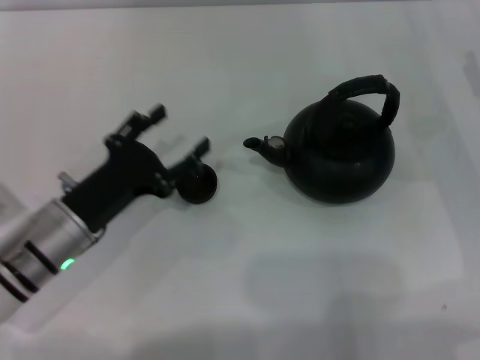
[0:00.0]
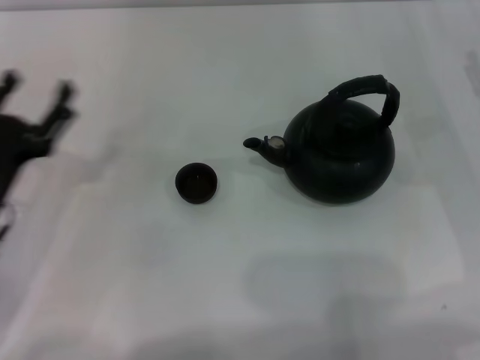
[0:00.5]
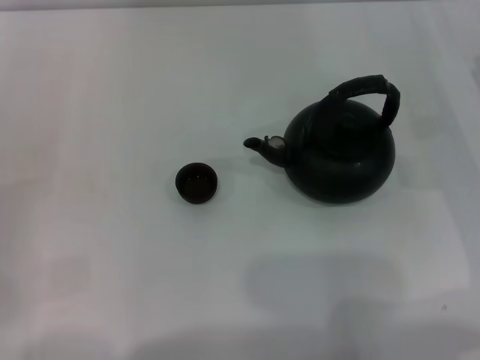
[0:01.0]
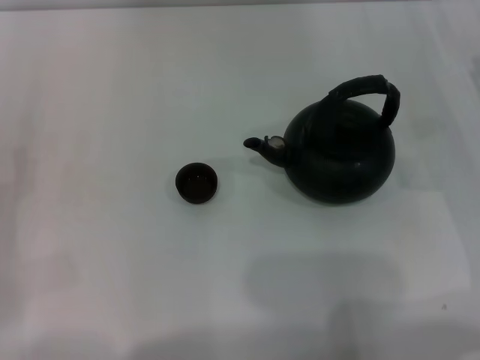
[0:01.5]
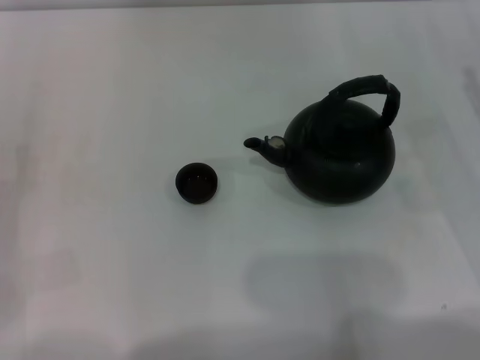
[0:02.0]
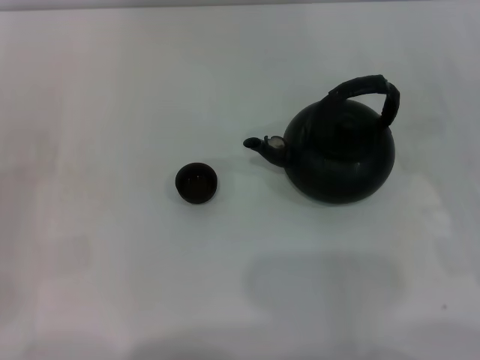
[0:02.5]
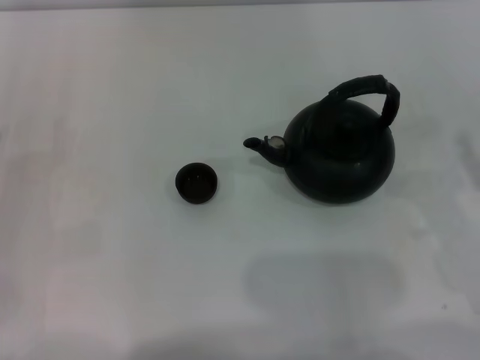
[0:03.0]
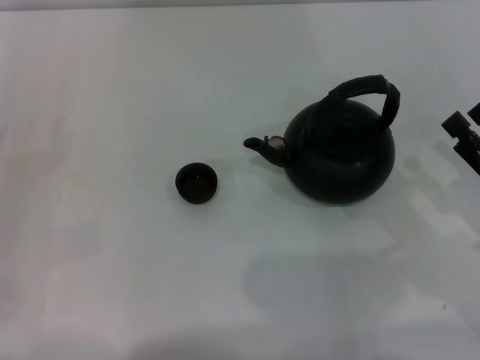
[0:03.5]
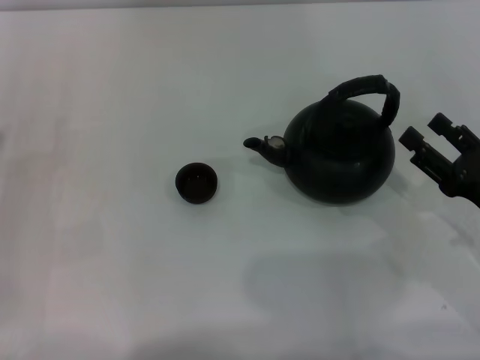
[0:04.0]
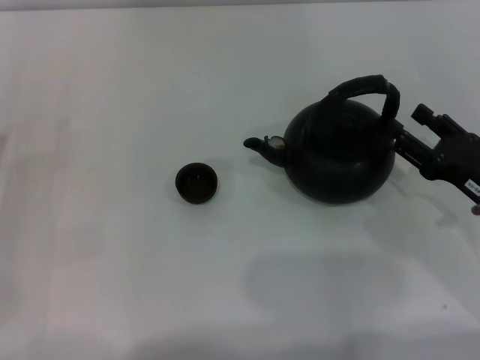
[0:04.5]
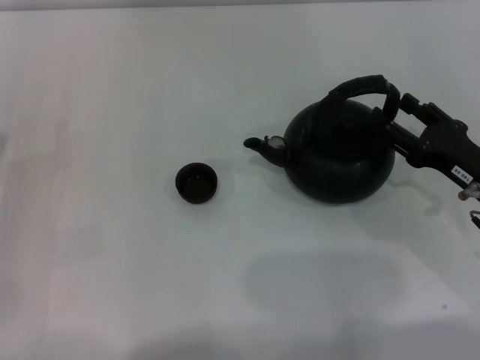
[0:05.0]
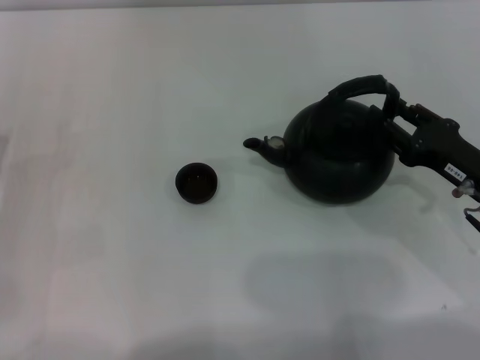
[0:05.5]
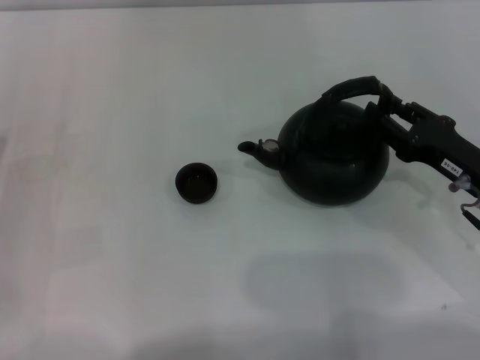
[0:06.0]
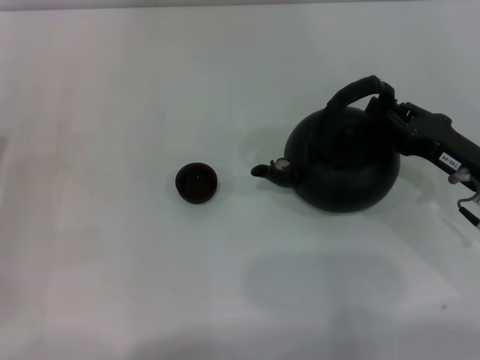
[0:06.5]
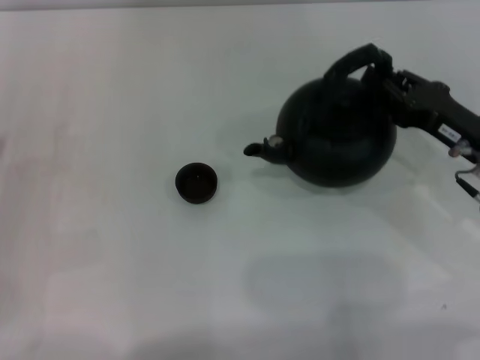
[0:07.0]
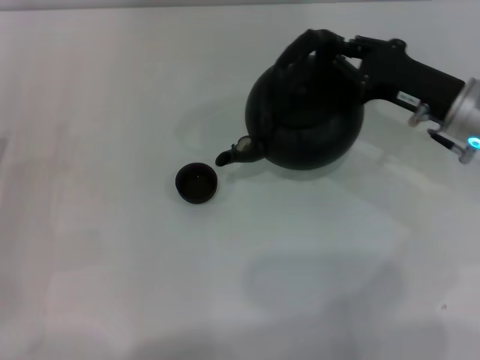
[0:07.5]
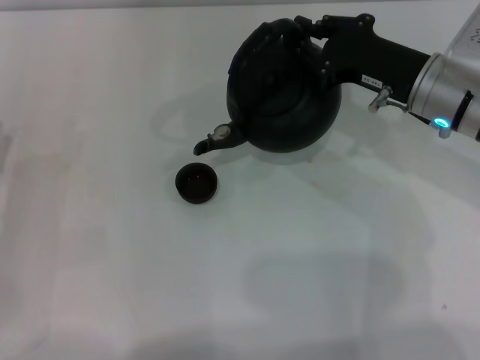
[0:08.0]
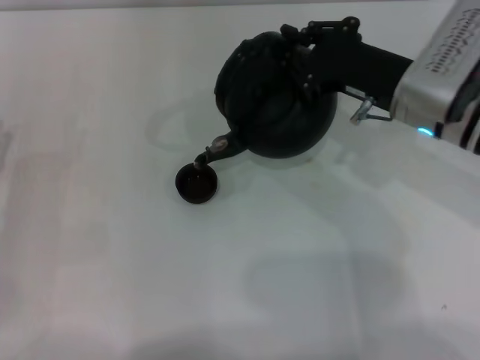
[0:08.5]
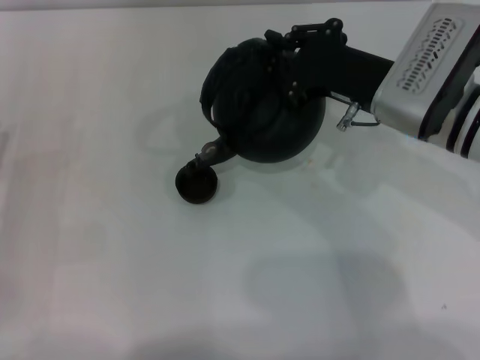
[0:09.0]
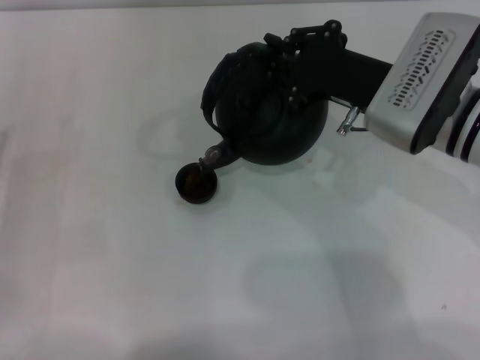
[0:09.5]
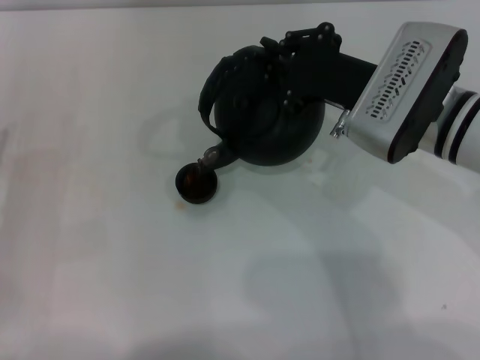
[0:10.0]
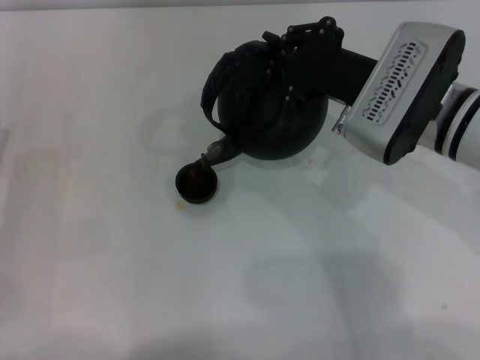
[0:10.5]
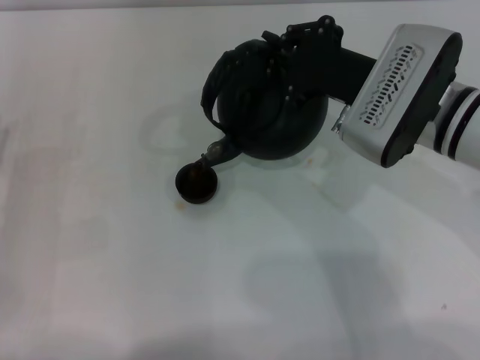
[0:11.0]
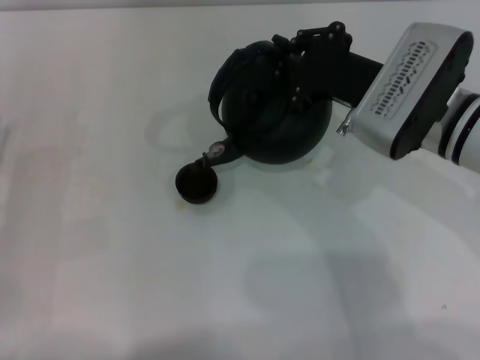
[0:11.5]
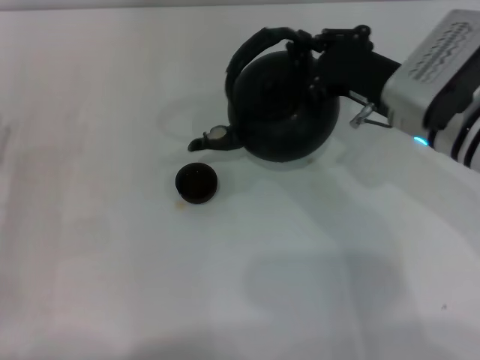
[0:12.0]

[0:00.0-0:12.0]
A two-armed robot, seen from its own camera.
Task of the whole recording: Grasp the handle of the teapot with one hand and pour tea into the teacup.
Step, 0:00.5 to 0:07.0: Pick up the teapot with the right gripper.
Step, 0:07.5 to 0:11.5: Pour tea into the teacup with the right gripper.
0:00.0 to 0:02.0: The left gripper heads to the left, covering some 15 cm.
0:02.0 to 0:04.0: The right gripper shifts approximately 10 cm backward.
0:04.0 to 0:06.0: The right gripper heads forward, covering some 5 cm, and closes up.
0:06.0 to 0:08.0: The right gripper travels forward, upward and to the left by about 15 cm, and closes.
0:08.0 to 0:10.0: The right gripper ends up some 5 cm from where it was.
0:10.0 to 0:12.0: The grippers move only a little.

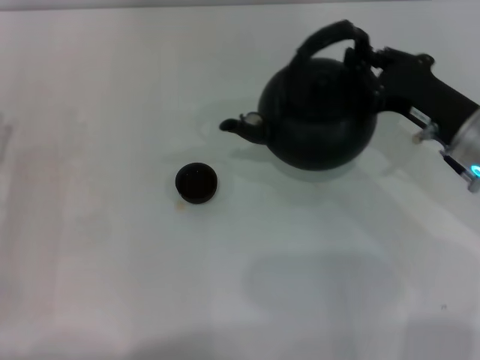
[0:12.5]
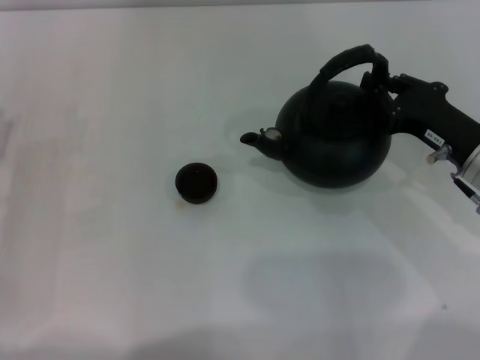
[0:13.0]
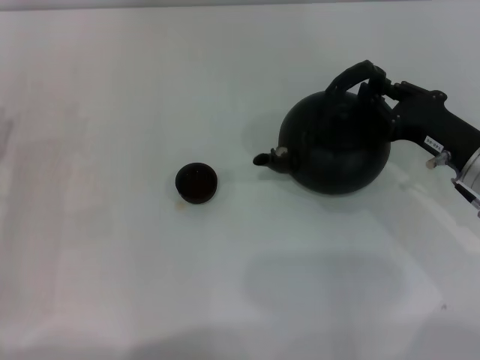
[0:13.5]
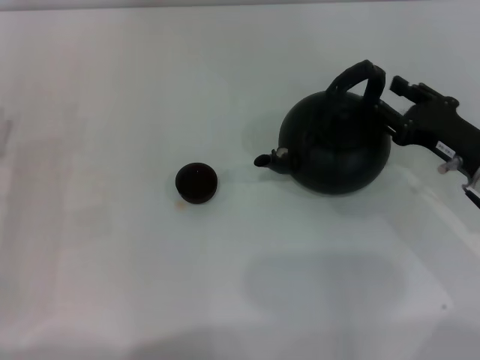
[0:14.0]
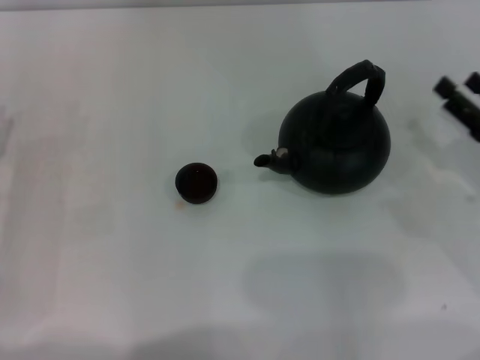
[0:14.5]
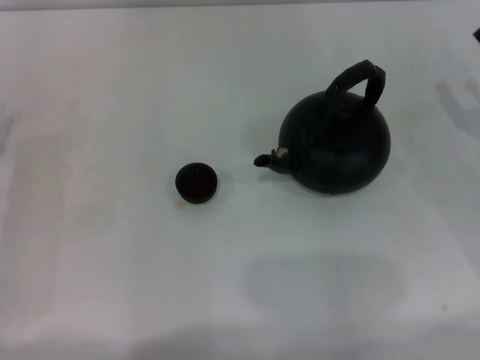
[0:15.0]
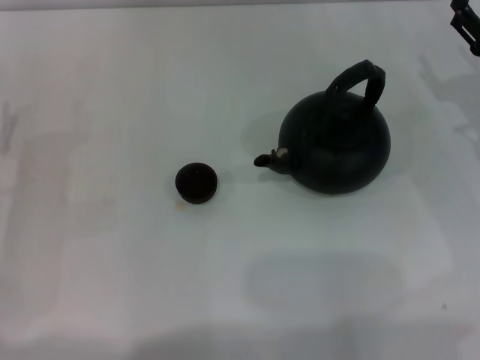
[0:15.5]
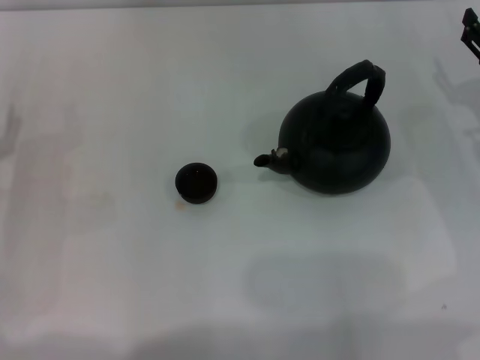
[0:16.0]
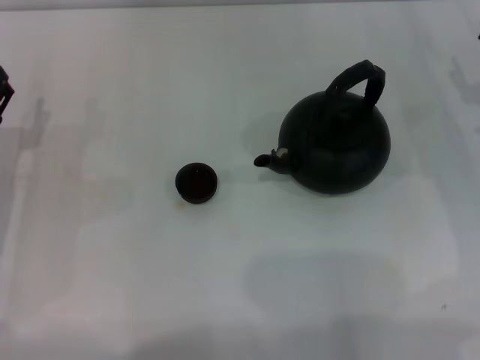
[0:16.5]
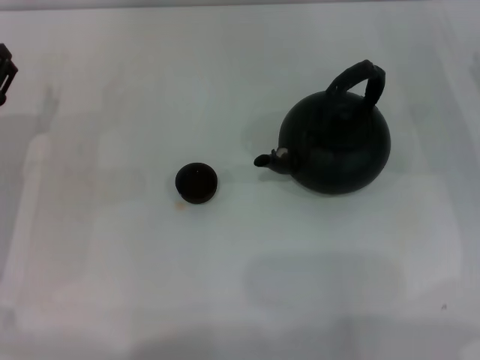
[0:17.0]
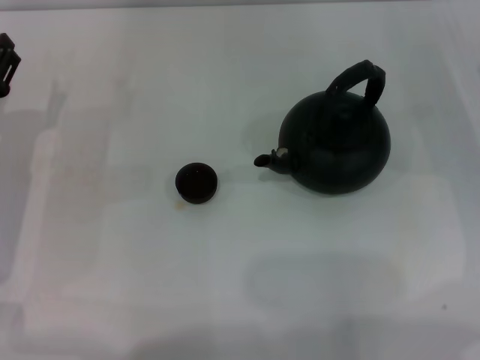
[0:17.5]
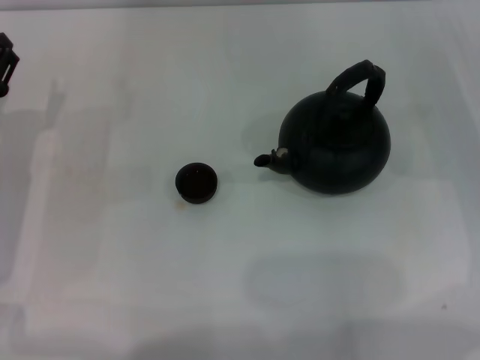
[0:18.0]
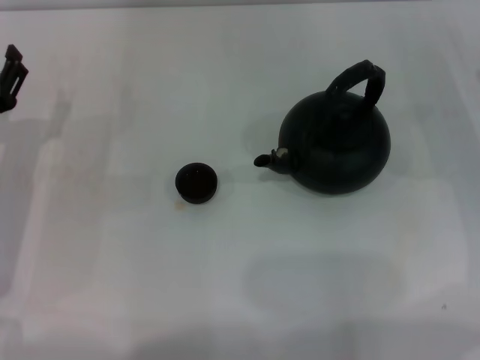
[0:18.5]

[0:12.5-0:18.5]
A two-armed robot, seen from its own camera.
Task of the whole recording: Grasp the handle of the teapot with one hand and pour tea into the teacup.
Step, 0:12.5 to 0:14.0: Put down the teapot with the right gripper.
0:12.5 to 0:14.5: The right gripper heads to the right and backward, covering roughly 10 cm, and opens.
0:14.5 to 0:16.5: The right gripper shifts approximately 10 cm forward.

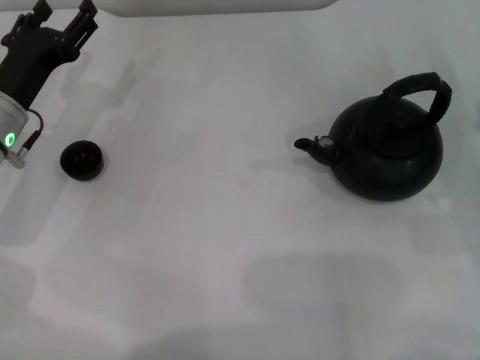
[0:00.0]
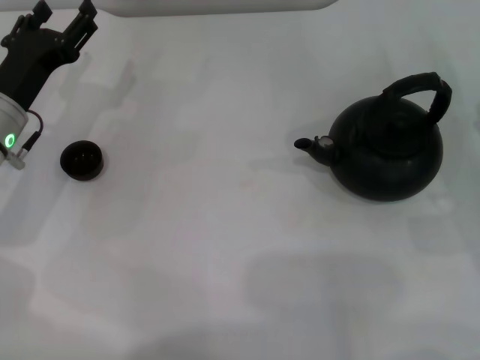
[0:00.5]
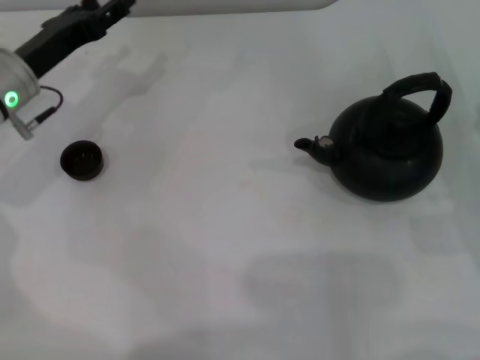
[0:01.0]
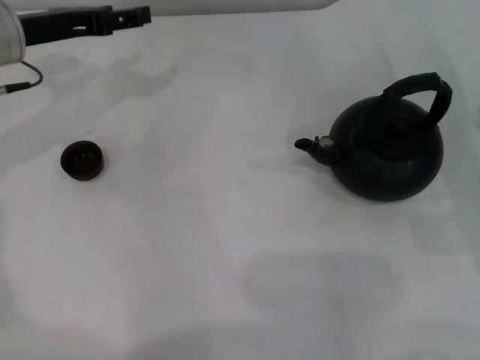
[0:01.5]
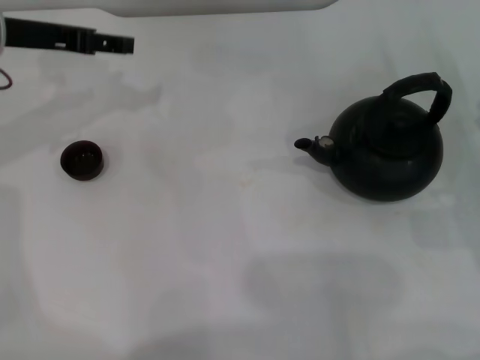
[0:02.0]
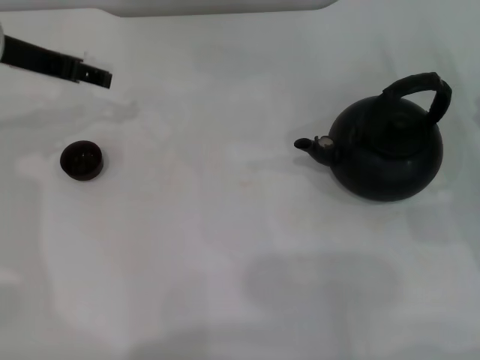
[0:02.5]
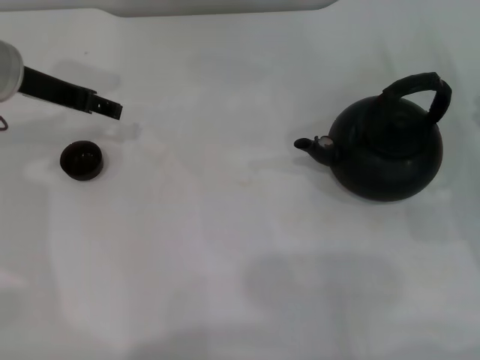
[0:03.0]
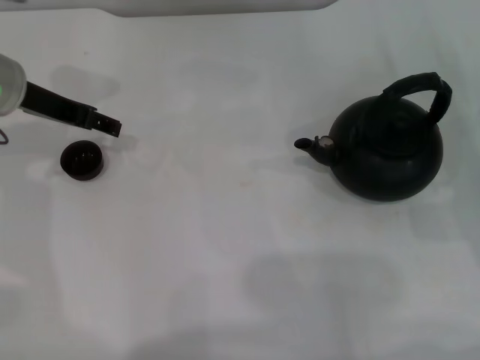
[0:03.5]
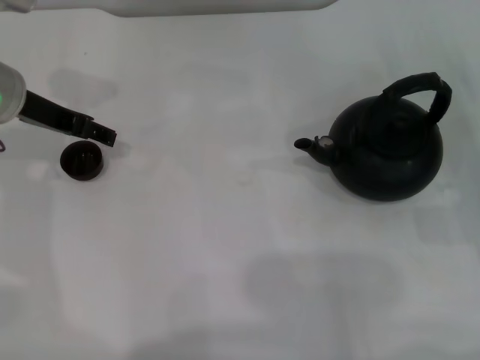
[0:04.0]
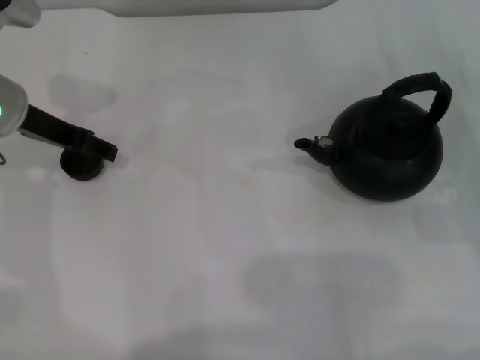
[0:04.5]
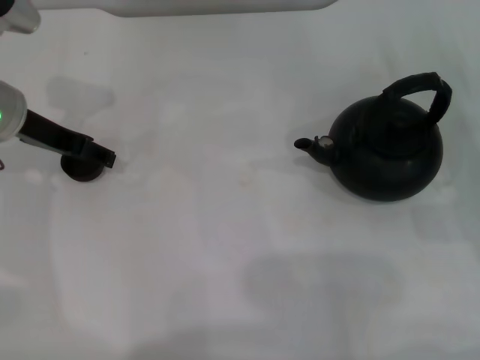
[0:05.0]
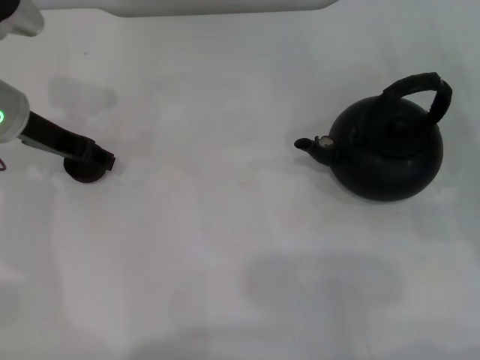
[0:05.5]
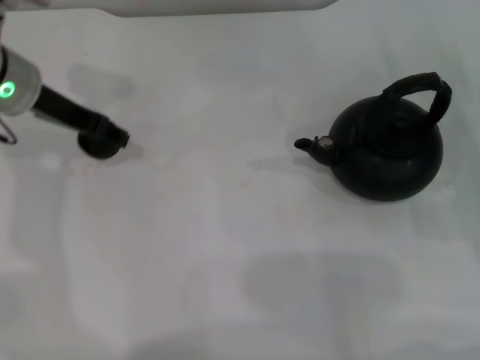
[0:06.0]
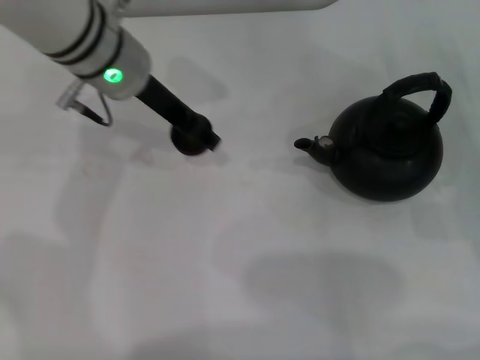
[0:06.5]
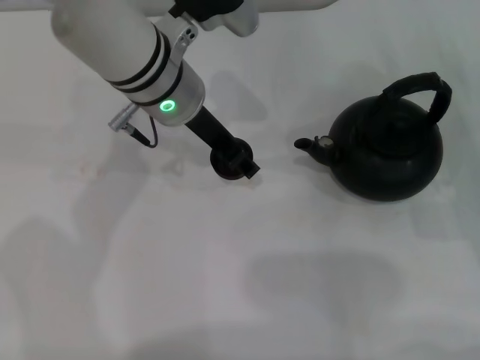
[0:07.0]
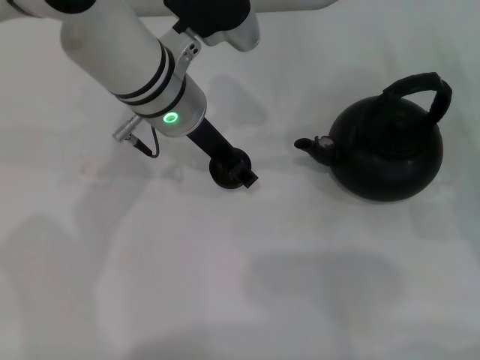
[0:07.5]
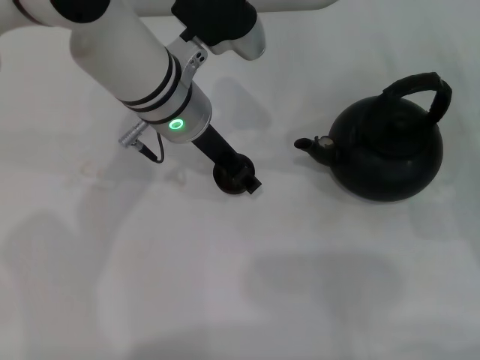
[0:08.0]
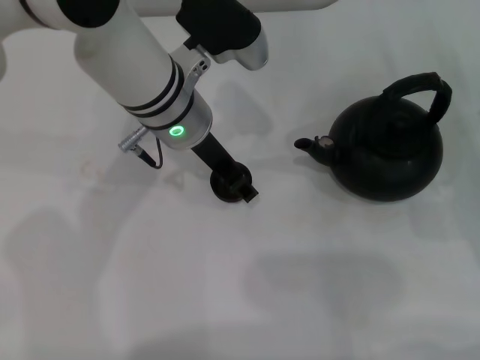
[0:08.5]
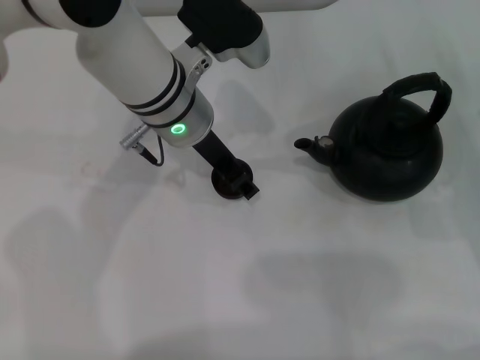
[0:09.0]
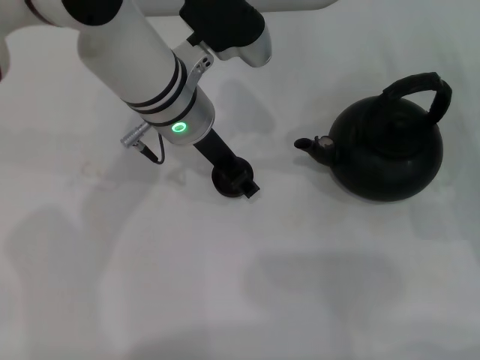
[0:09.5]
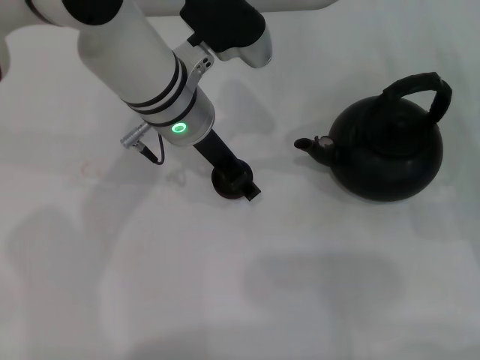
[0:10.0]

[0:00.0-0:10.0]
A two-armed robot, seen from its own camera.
Task of the whole recording: Grasp the handle of the teapot with one hand and pour tea into the teacup.
Step, 0:00.0 to 0:06.5: Pick up the teacup with the left gripper.
0:00.0 to 0:02.0: The left gripper shifts some 15 cm upward and forward.
0:04.0 to 0:06.0: The left gripper closes.
0:06.0 to 0:08.0: The left gripper travels to the right by about 15 cm.
0:08.0 to 0:10.0: Neither gripper changes place.
